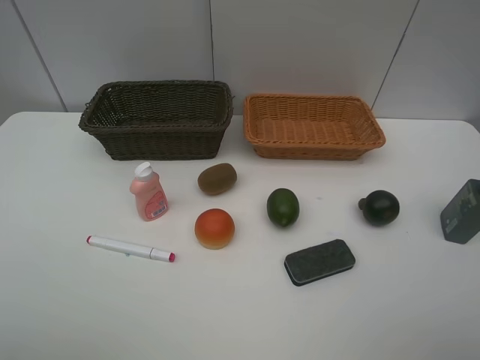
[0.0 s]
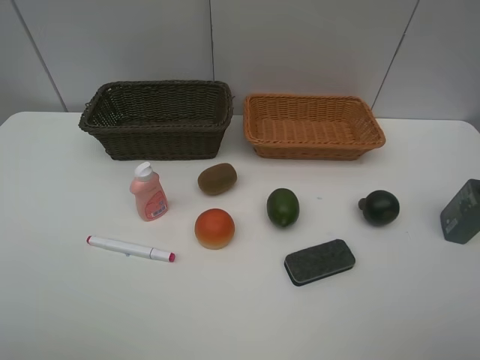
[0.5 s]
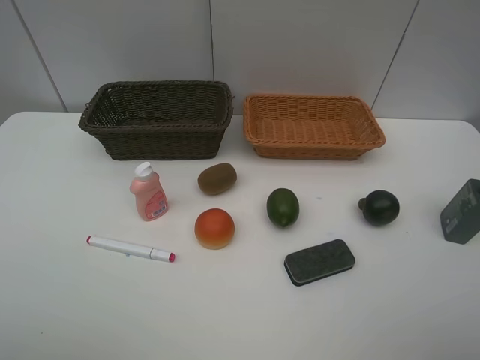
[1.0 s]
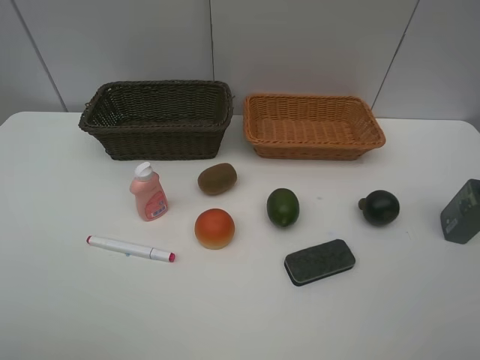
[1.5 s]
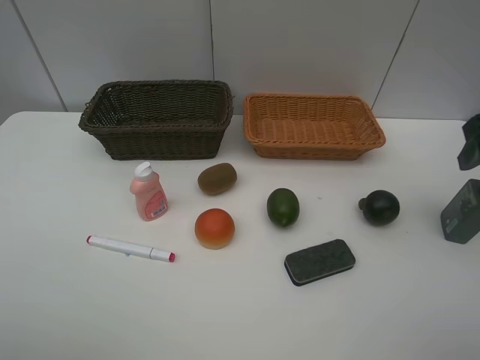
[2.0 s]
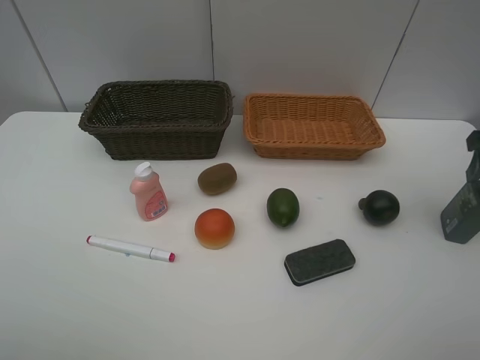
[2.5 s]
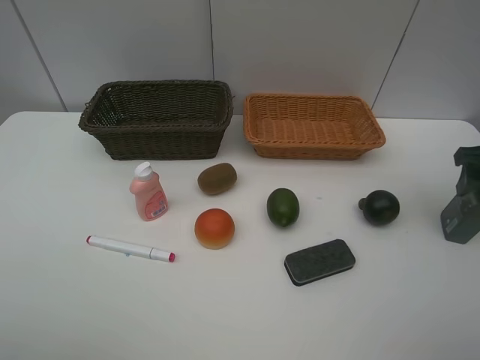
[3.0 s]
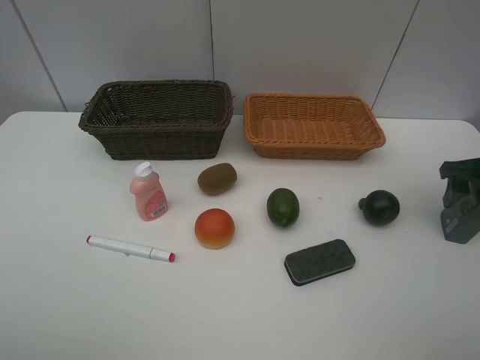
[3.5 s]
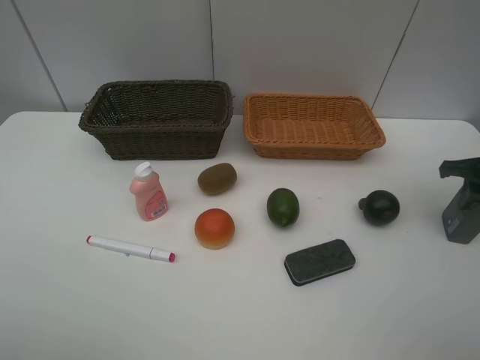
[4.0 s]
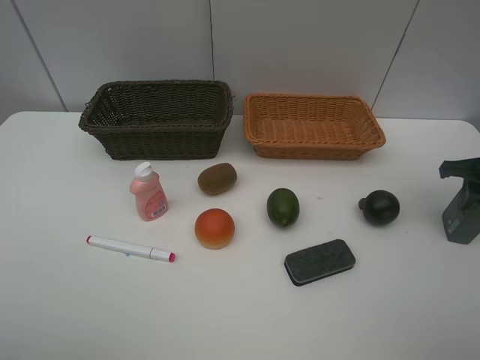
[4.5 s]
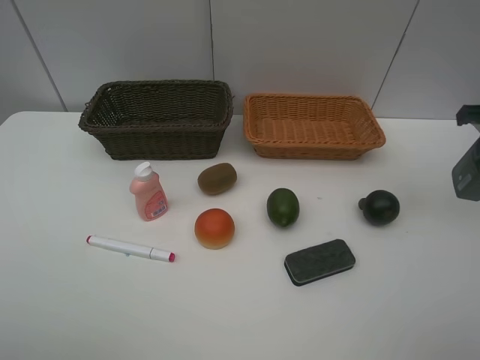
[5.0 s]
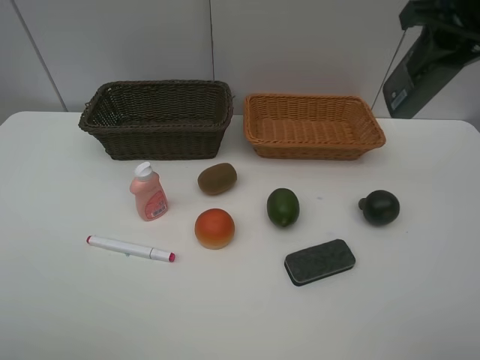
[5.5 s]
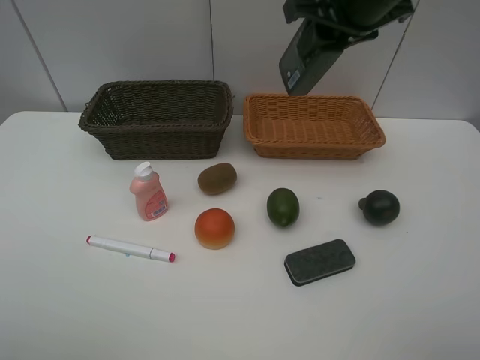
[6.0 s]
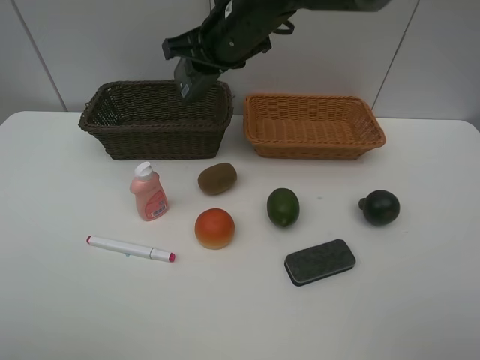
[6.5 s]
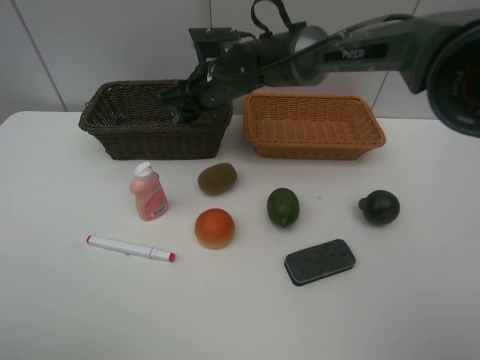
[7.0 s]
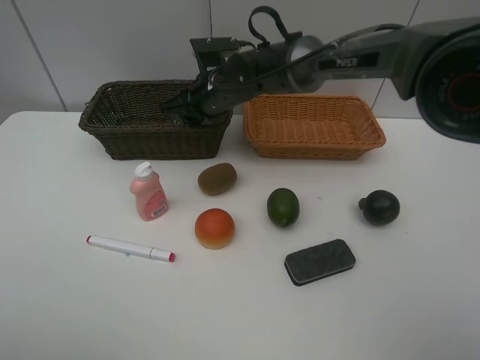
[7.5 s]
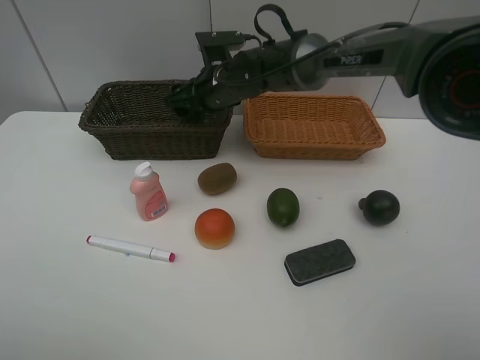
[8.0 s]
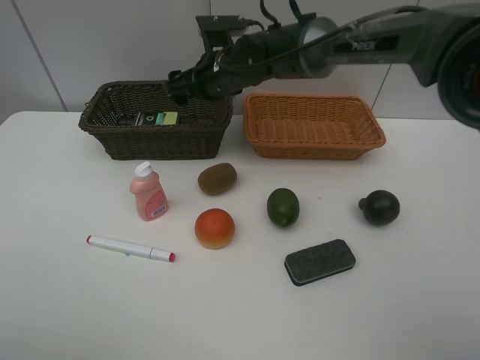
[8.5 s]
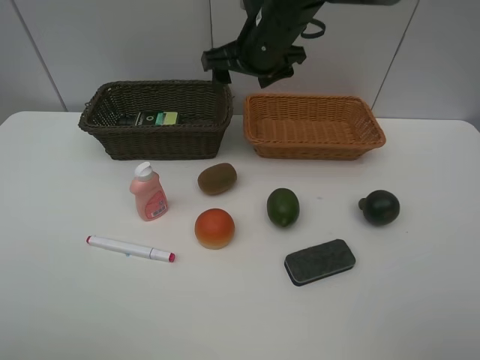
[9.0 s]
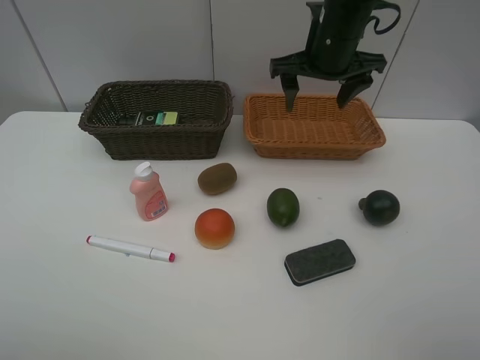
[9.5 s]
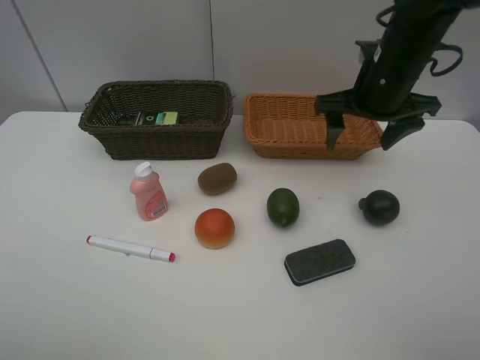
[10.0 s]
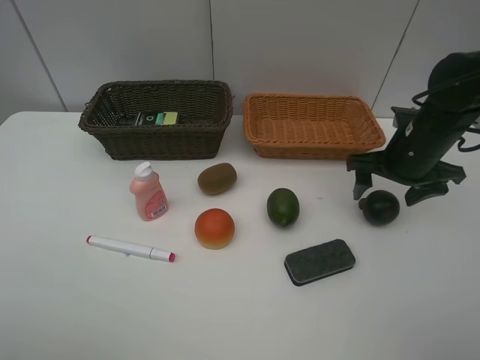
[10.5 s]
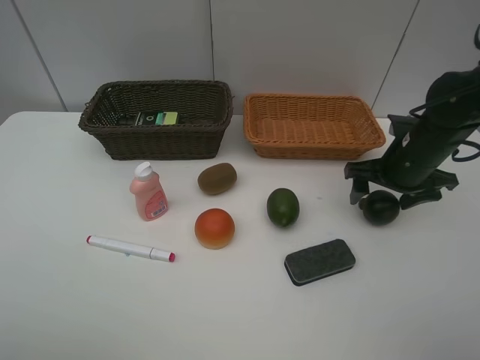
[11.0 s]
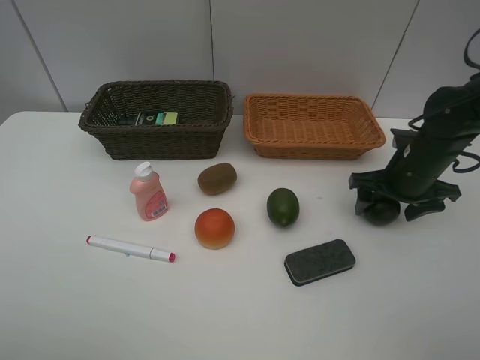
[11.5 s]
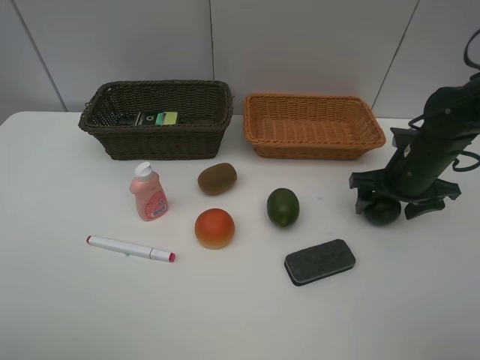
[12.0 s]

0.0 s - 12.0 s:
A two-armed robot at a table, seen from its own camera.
Task of the whole recording: Place multiple objects separately in different baskets.
Step, 5.0 s - 8.5 s: Place the hard facial cleanser in the dark basket with right gripper.
2.0 s - 4.0 s: The right gripper travels downward, to the right and forward by some 15 cm, and closes.
4.0 s - 6.0 s: The right gripper travels to the left and upward by approximately 30 cm.
6.0 s - 8.0 s: The right gripper moves downward, to the left and forward, approximately 25 cm, and opens.
8.0 s - 10.0 s: The right gripper shifts some 25 cm to the right and backward.
10.0 s - 12.0 s: The right gripper travels downward and to the right by some 15 cm.

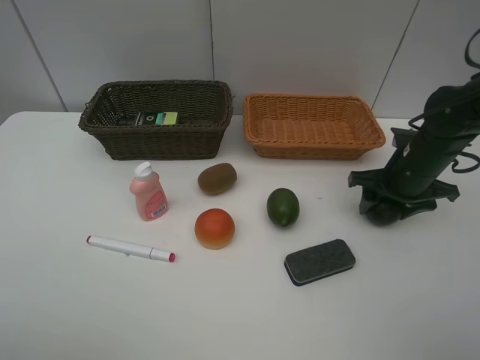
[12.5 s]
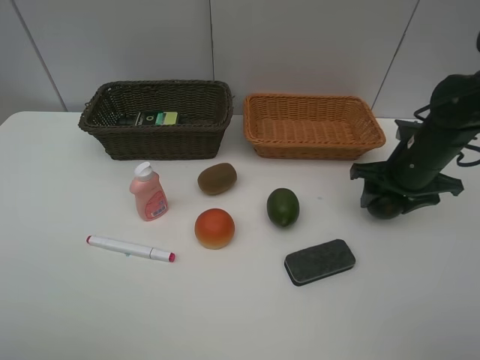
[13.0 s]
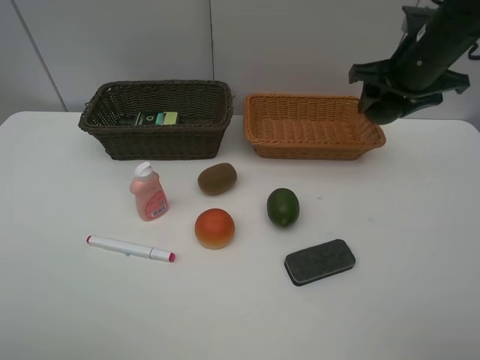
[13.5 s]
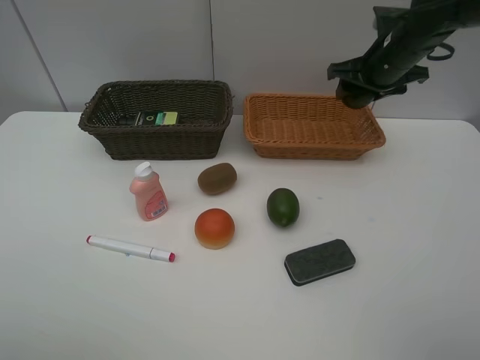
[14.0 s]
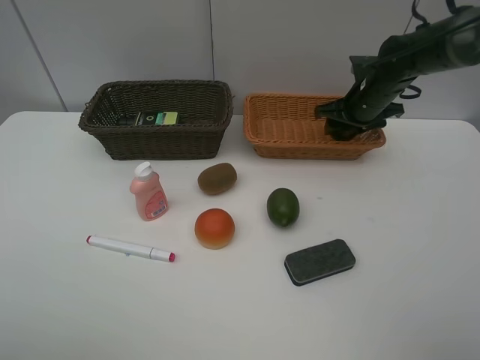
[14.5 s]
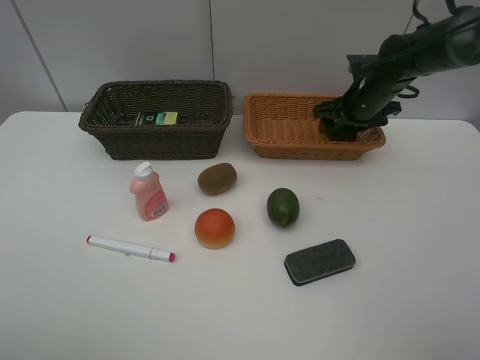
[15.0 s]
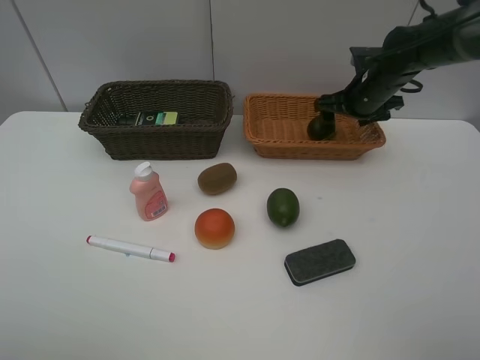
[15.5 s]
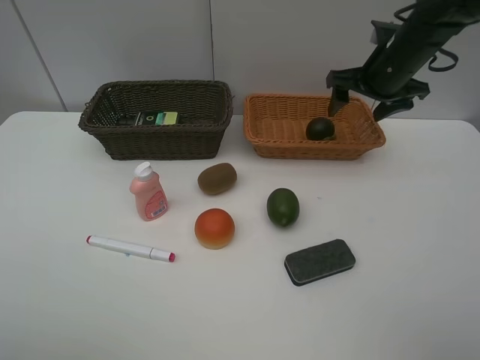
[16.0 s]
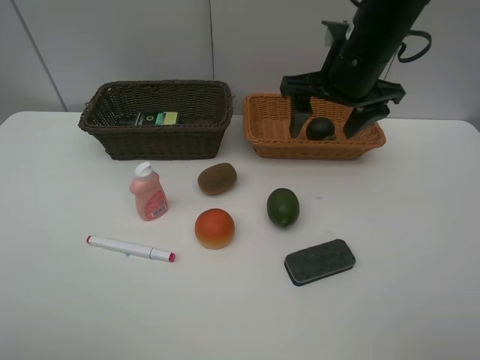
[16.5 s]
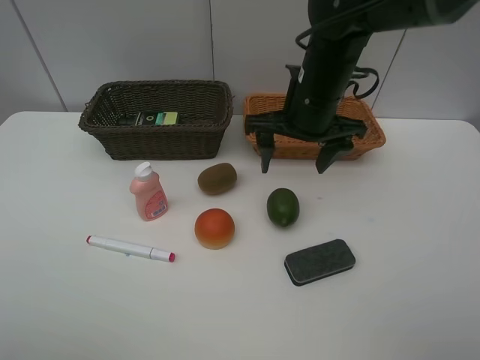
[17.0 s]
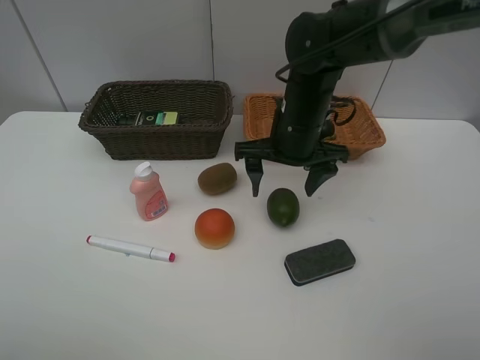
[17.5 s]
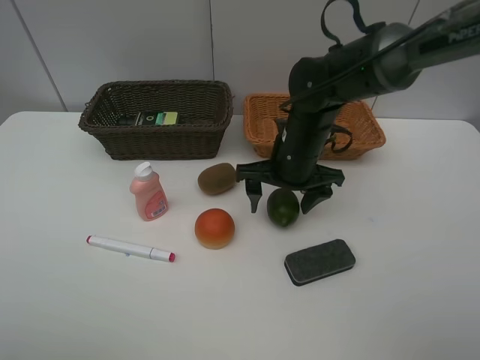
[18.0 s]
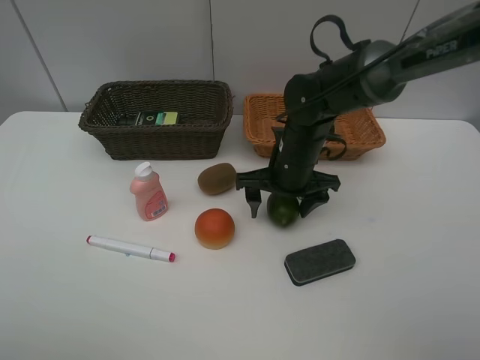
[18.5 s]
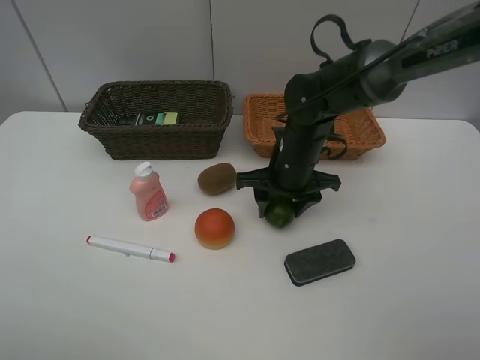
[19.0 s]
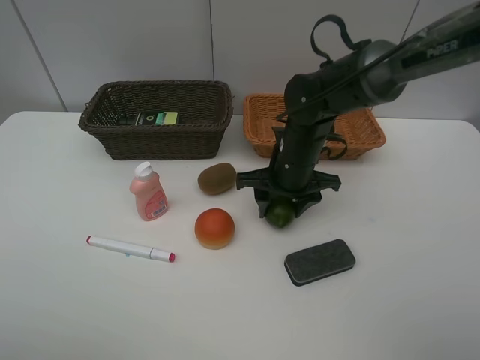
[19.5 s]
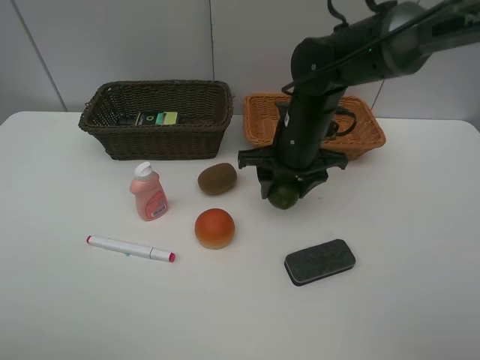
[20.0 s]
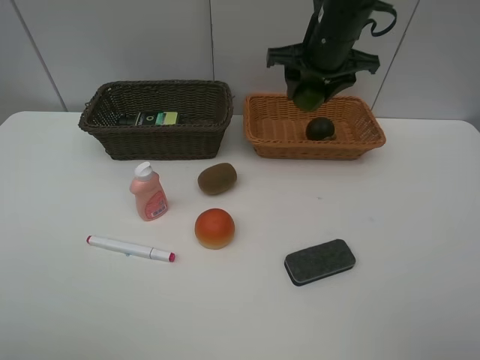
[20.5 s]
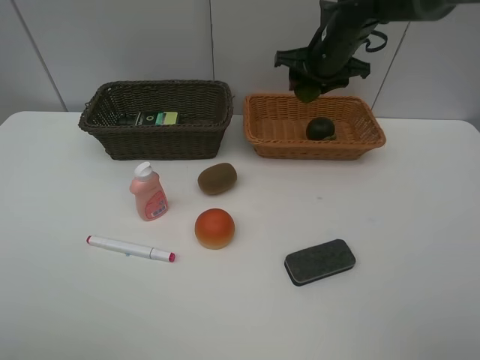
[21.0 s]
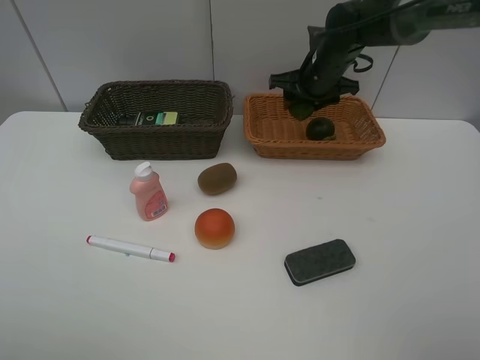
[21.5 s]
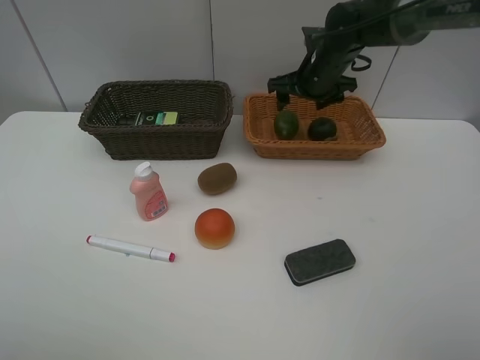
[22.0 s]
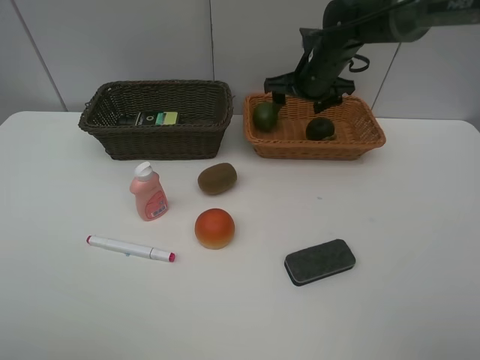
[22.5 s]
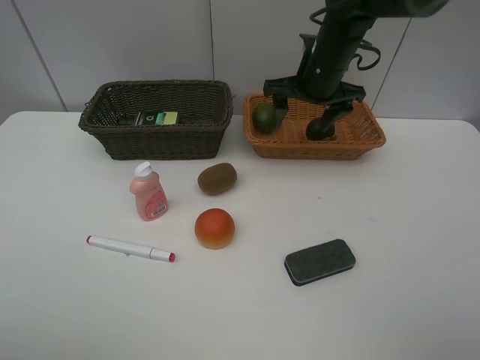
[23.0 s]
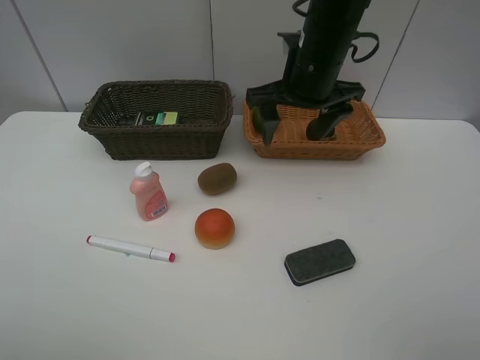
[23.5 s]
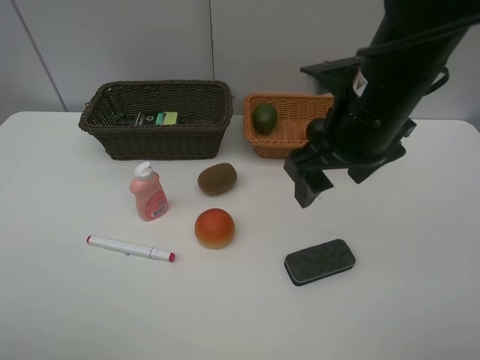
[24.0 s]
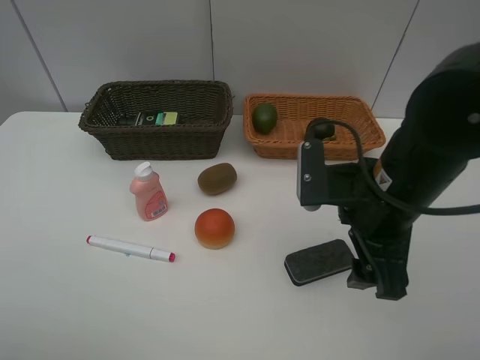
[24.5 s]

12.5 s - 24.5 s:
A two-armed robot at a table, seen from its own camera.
Task of the whole recording: Place multiple objects separately in different baskets.
Step, 13.5 s - 15.5 s: Place the mangosteen in the light basket with right gripper.
Step, 16.0 s - 19.5 s: Pick up the lime with right gripper.
Step, 20.0 s - 22.0 s: Place the lime in the light basket with right gripper.
12.5 s - 14.5 s: The right gripper moves forward, some 15 cm, and reaches roughly 15 cm upward, then returns.
14.5 s - 16.5 s: The right gripper is displaced backward, upward and to the left by approximately 20 cm, and opens up.
16.5 s - 18.5 s: The right gripper is displaced downward by about 15 cm.
18.5 s - 20.5 s: The right gripper heads upward and forward, covering roughly 15 cm, and closes its fingers.
20.5 s - 22.5 s: The right gripper shifts roughly 10 cm downward and forward, and opens its fingers.
22.5 s - 24.5 s: The right gripper heads backward, covering some 25 cm.

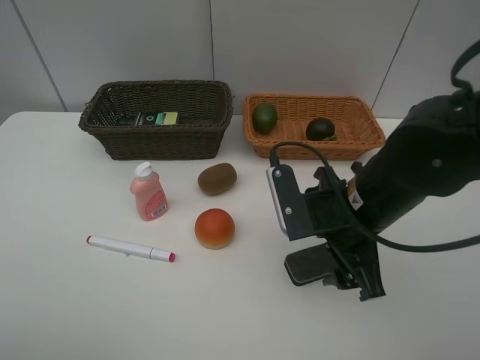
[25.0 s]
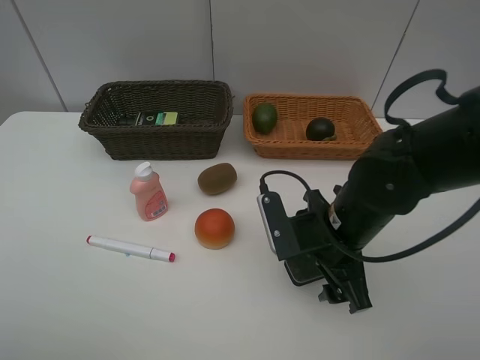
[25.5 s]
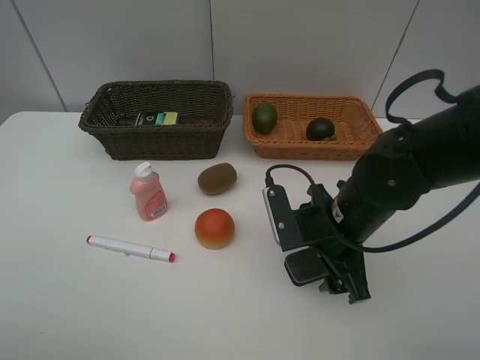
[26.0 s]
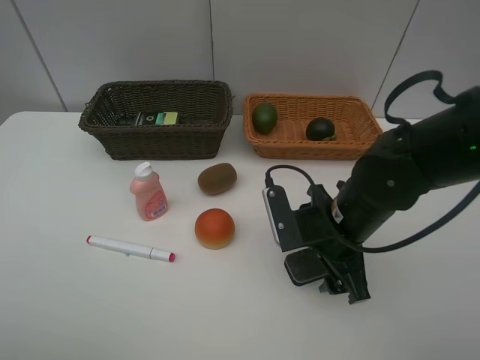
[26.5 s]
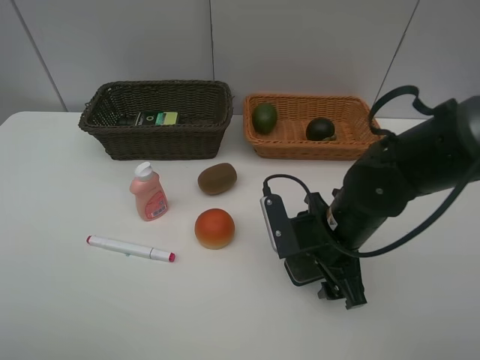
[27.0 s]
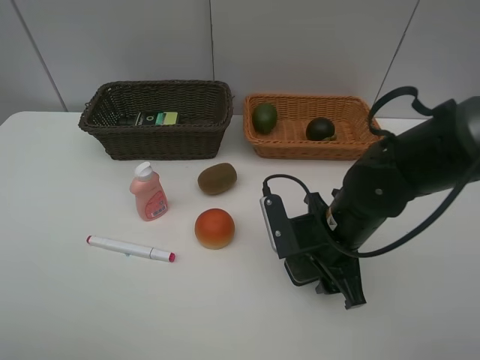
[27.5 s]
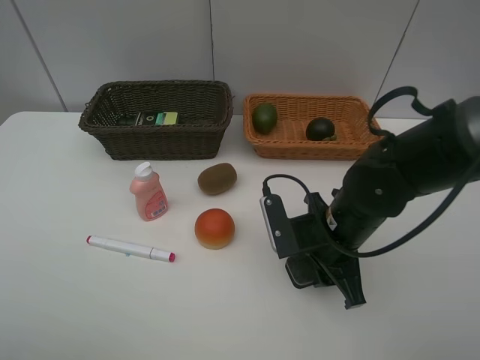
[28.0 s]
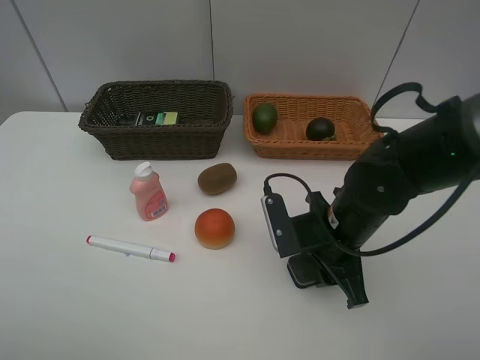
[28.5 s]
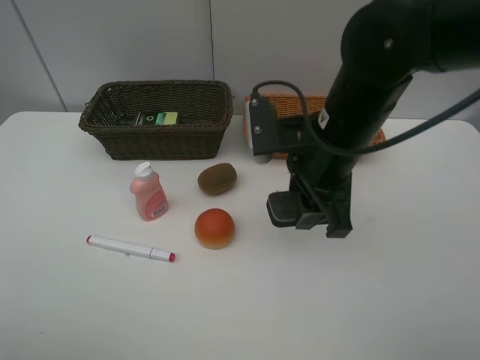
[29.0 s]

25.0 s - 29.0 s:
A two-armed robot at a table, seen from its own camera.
Task of the whole recording: Place multiple objects separately in different baskets.
Step, 25.0 s - 28.5 s: Pick up blackboard eraser with right gripper.
25.0 s - 27.0 s: The right gripper is displaced downward by roughly 5 cm.
27.0 s - 29.0 s: The right gripper moves upward, roughly 10 cm, and closes.
